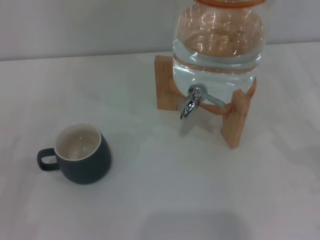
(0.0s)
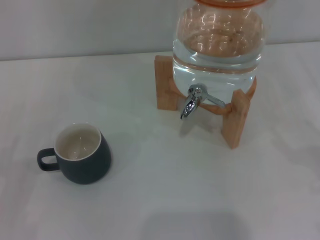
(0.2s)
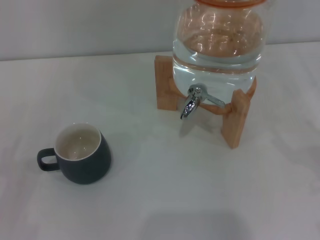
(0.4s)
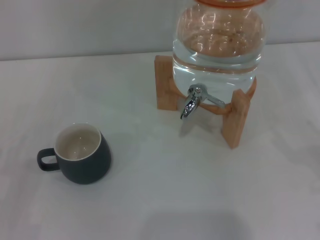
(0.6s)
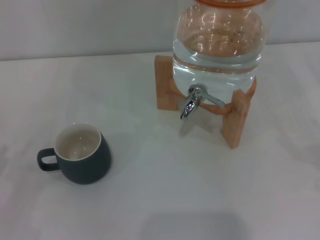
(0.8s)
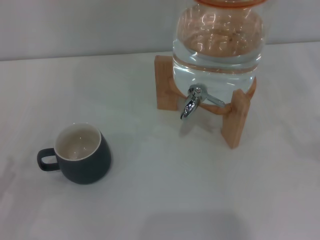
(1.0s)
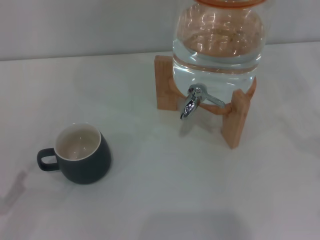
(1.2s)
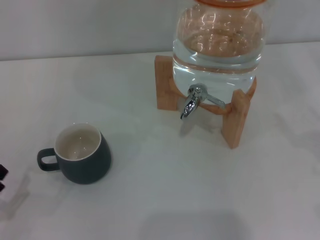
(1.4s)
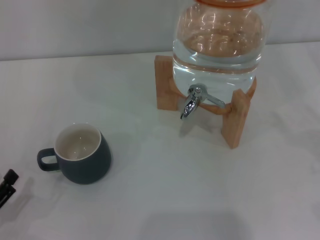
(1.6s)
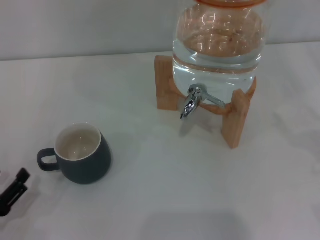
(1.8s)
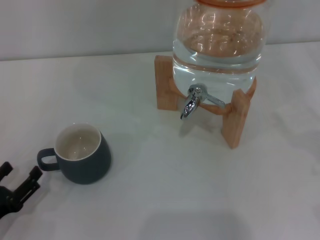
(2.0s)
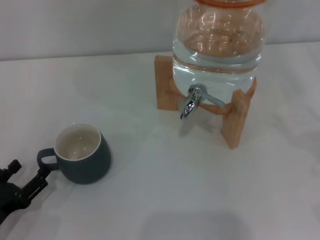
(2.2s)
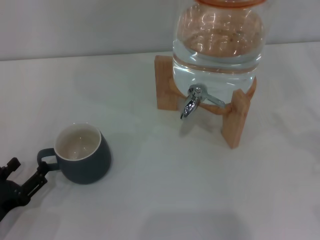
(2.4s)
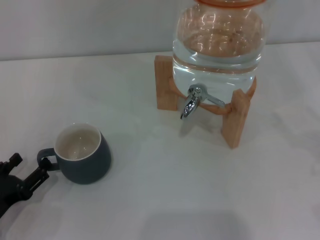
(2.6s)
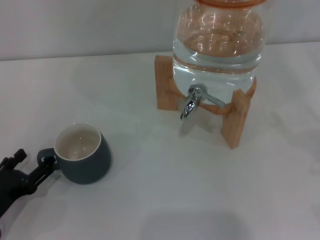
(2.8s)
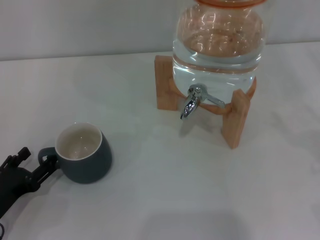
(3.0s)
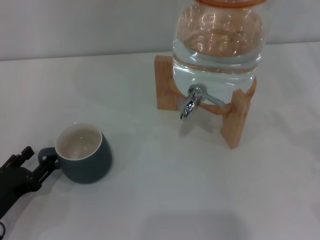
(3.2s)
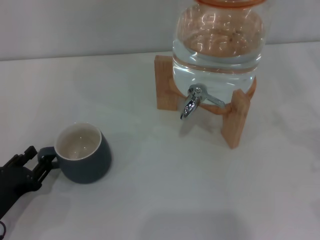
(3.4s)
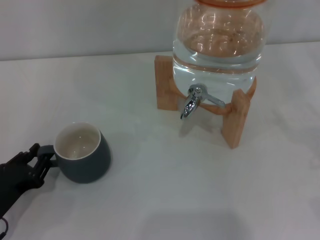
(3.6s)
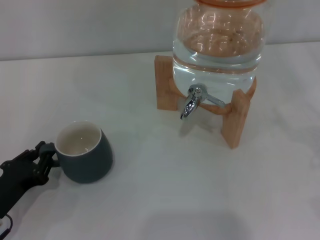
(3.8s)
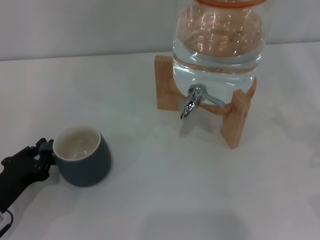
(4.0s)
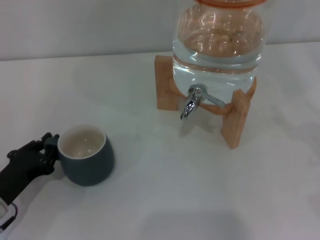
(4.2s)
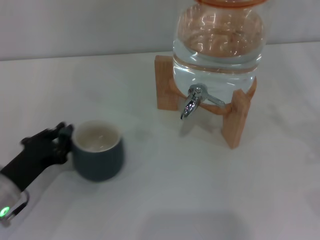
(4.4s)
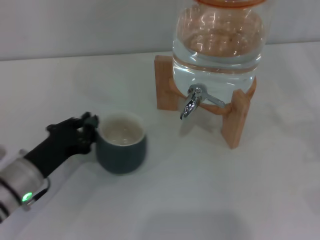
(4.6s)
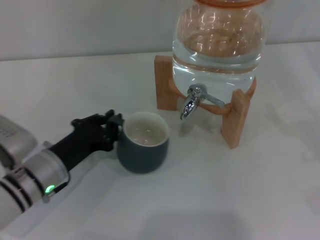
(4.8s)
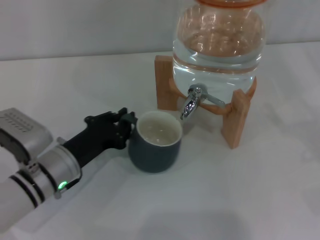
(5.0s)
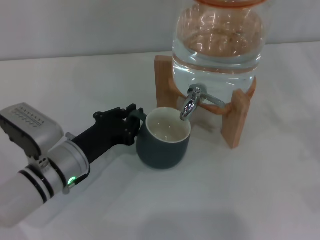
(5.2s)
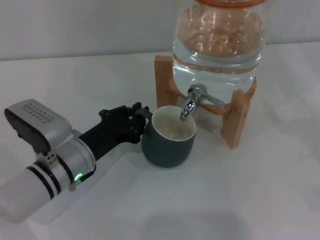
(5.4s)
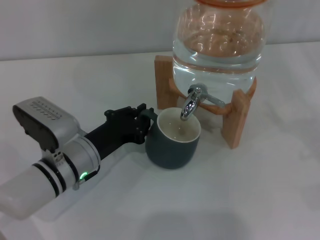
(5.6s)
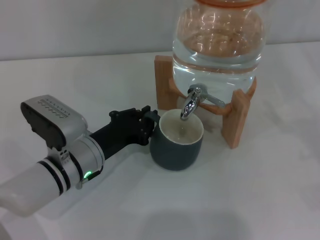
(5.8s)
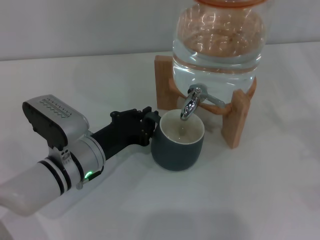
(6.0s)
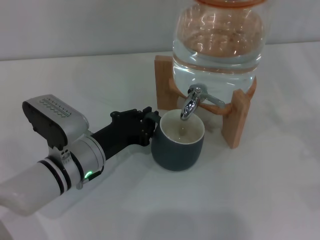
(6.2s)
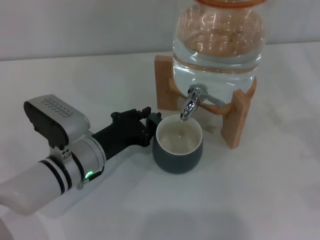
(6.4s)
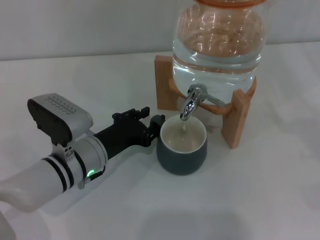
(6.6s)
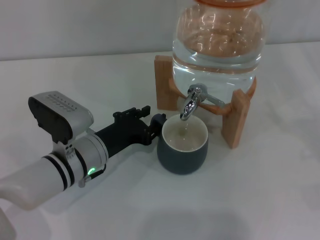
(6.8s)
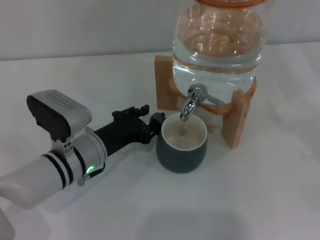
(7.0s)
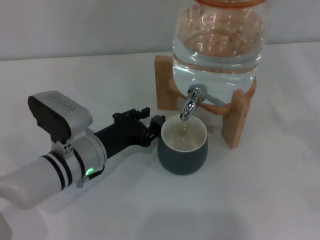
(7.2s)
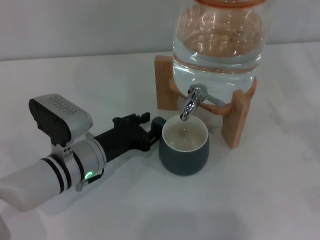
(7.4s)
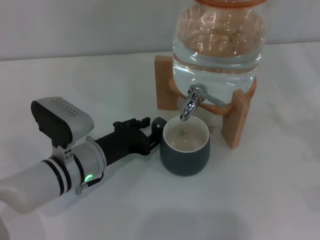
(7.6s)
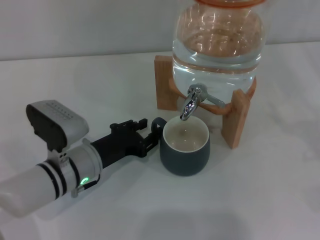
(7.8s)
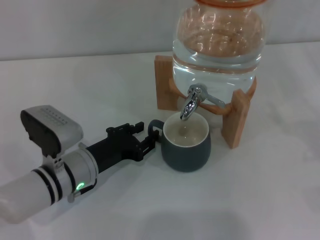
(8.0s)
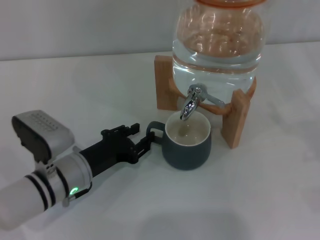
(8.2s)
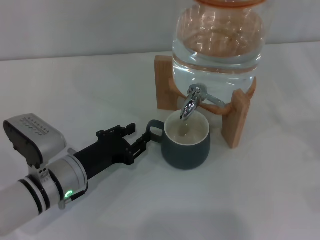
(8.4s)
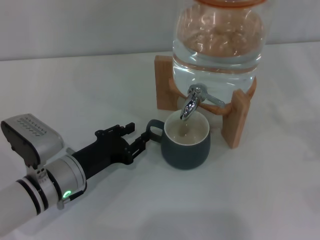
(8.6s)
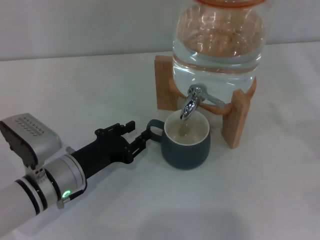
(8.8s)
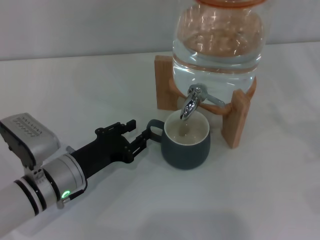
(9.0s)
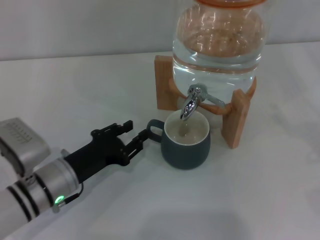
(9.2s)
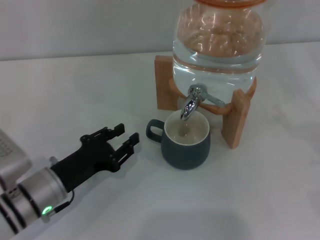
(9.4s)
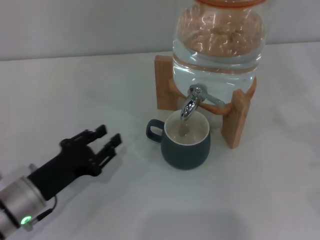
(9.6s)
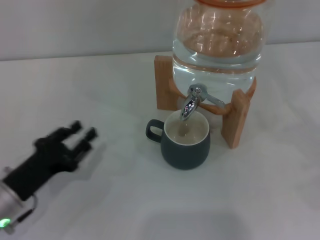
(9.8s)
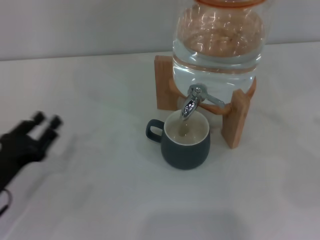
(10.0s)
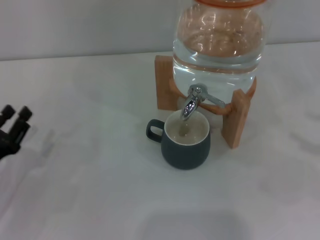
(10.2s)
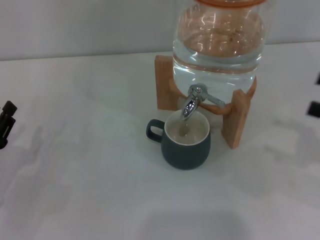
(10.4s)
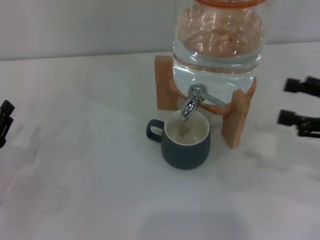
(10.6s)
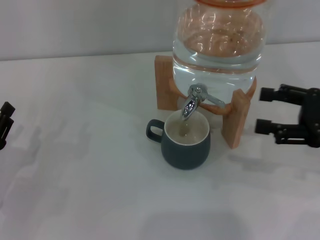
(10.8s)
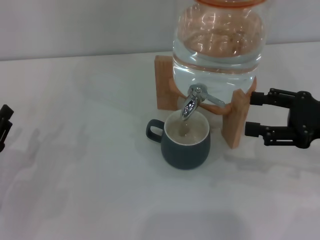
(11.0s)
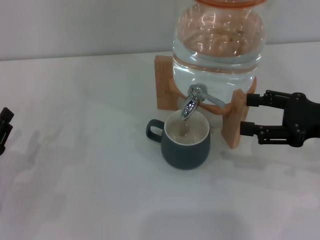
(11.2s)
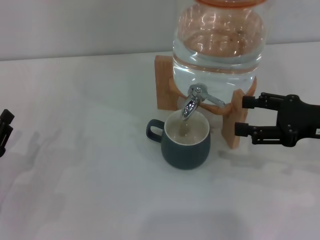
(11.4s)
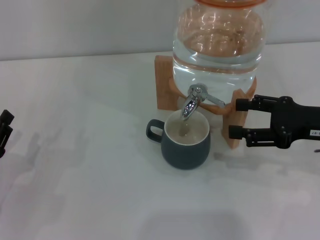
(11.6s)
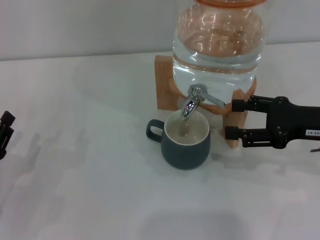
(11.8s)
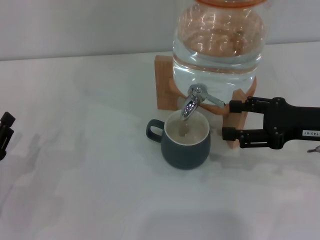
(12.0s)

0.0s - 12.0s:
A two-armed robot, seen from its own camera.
Task of the whole recording: the left gripper pick up the black cup and place it horizontally under the faucet, the right gripper turn on the faucet to fill the cup, and then turn off the faucet.
Step, 0.0s - 8.2s: Move the cup beneath the water dispenser nozzle with the left gripper.
0.0s - 1.6s: The left gripper ends up some 5 cm from where it was.
1.6s - 3.0s: The left gripper heads forward, covering roughly 5 cm.
3.0s - 4.4s: The left gripper changes place by some 5 cm, and closes.
4.4s - 6.0s: The left gripper shifts roughly 10 cm to the right.
6.0s - 7.6s: The left gripper opens its fingers.
7.6s - 9.0s: The grippers stay close to where they were, moving slightly.
9.0s - 10.4s: The right gripper shifts about 10 cm to the left and upward; the left gripper goes about 15 cm to the left.
10.4s - 12.0s: The right gripper shifts roughly 10 cm to the left and forward.

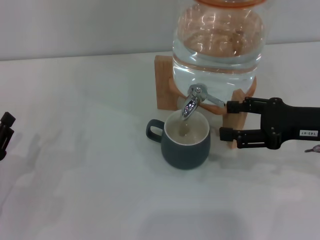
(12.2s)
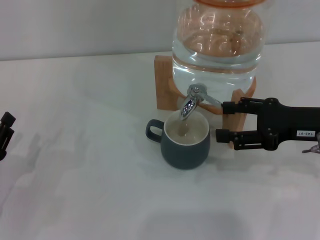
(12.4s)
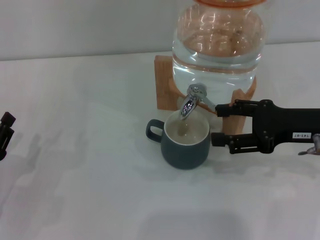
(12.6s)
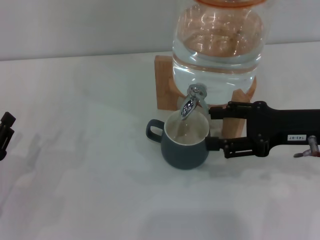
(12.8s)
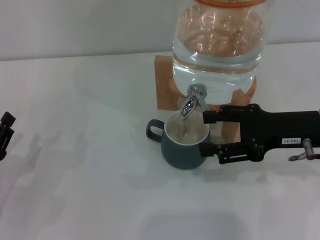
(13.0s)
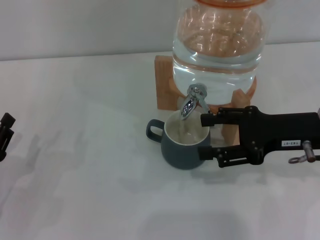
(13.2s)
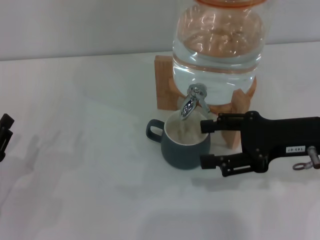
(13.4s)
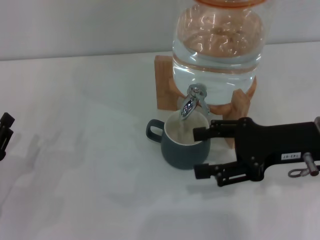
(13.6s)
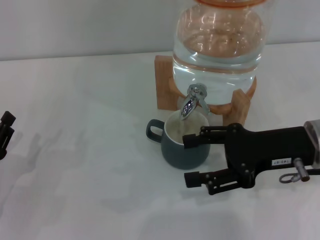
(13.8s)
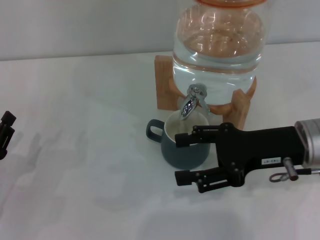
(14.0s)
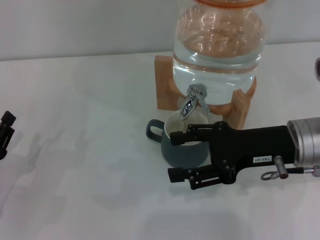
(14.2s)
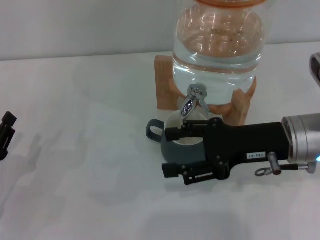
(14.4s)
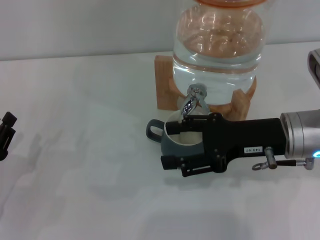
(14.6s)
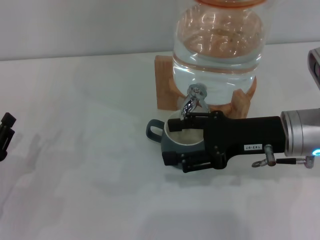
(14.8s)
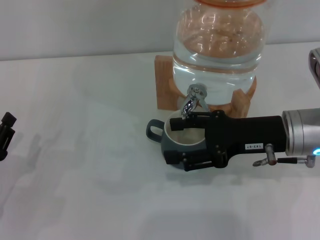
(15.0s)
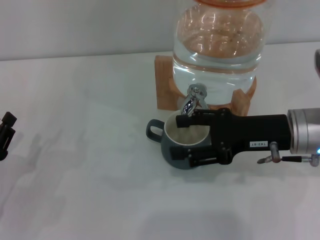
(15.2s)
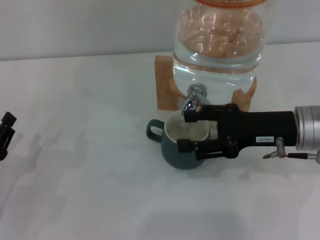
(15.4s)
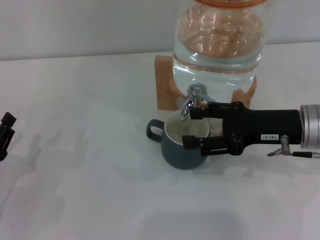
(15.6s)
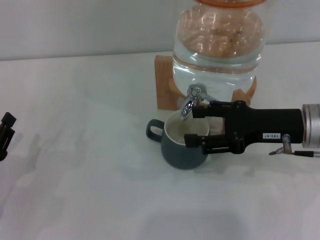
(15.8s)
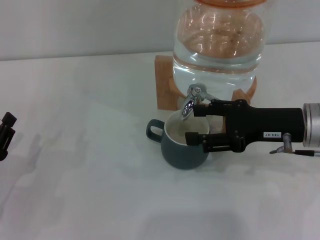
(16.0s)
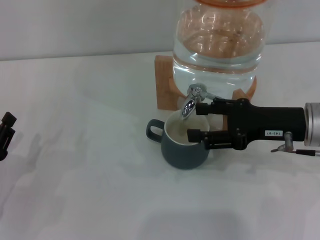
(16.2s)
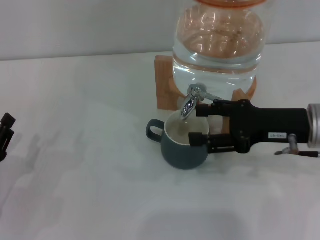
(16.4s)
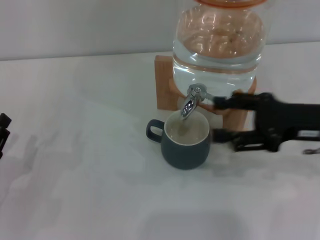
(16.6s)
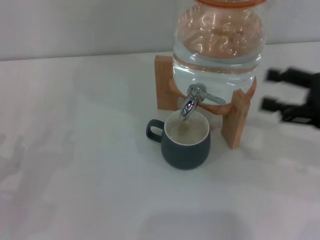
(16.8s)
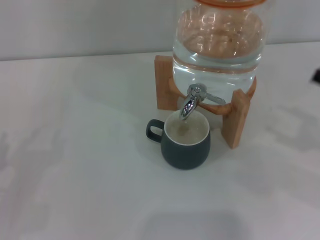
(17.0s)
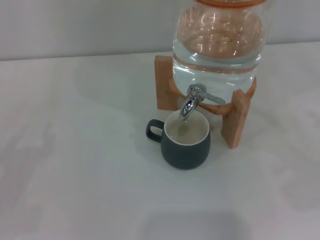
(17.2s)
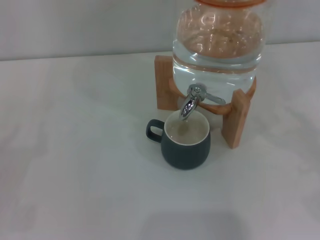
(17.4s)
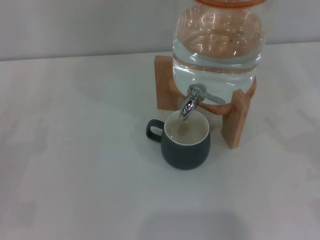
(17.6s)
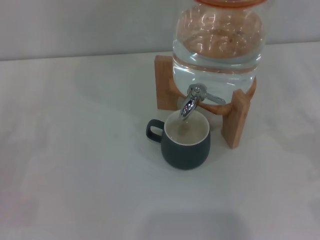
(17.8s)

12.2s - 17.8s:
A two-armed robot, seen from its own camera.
Task of the whole recording: the left gripper pick up the black cup and place it horizontally under the faucet, the right gripper turn on the faucet to fill the cup, and then turn off the faucet.
Step, 13.4s - 16.6s: Close the dispenser valve with the right gripper.
12.2s - 13.6s: There are only small adjustments of the grippers.
13.6s - 16.4s: There are only small adjustments of the grippers.
16.4s - 17.8s: The left gripper goes some 5 cm to the left; the right gripper goes about 20 cm to the right and backward.

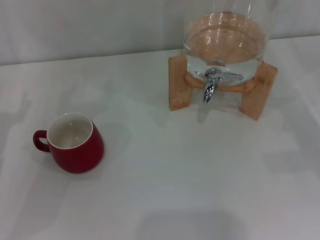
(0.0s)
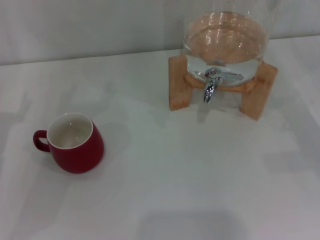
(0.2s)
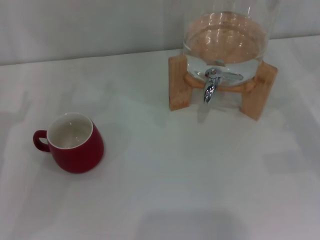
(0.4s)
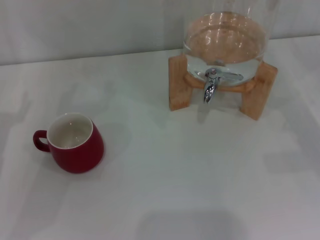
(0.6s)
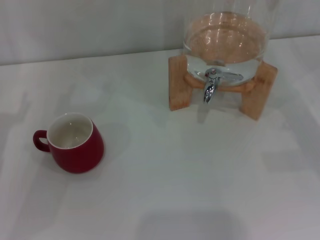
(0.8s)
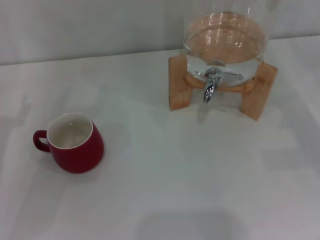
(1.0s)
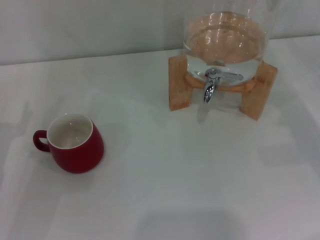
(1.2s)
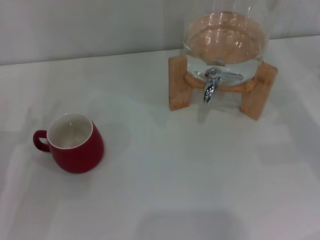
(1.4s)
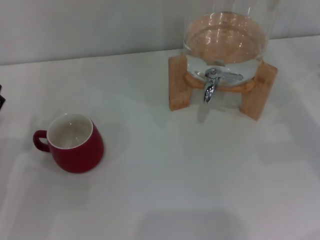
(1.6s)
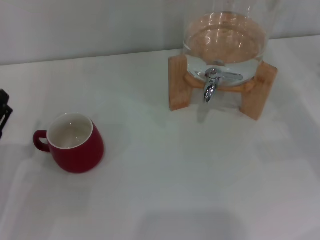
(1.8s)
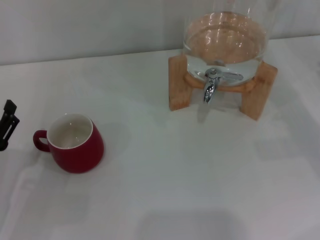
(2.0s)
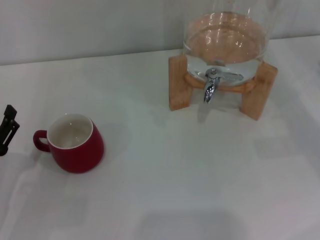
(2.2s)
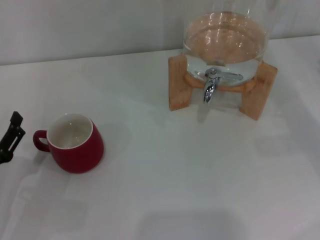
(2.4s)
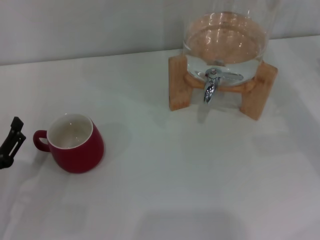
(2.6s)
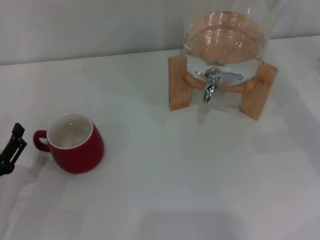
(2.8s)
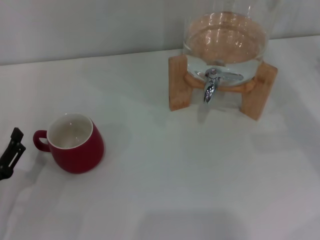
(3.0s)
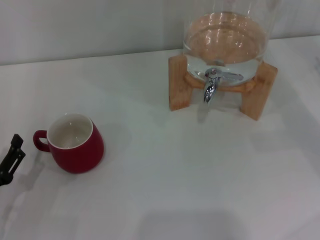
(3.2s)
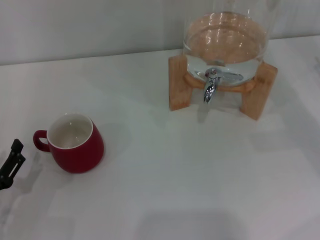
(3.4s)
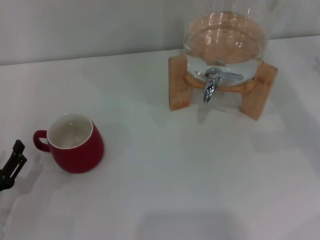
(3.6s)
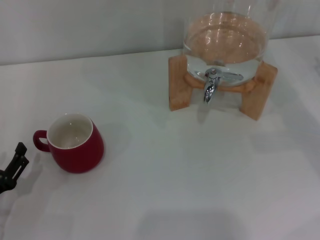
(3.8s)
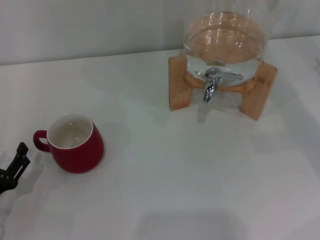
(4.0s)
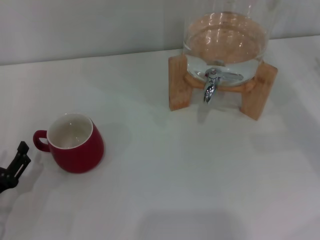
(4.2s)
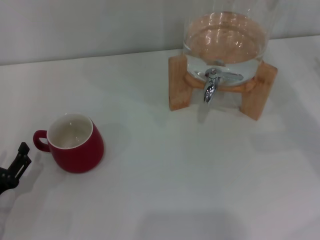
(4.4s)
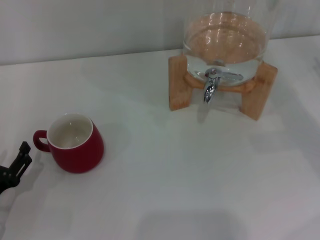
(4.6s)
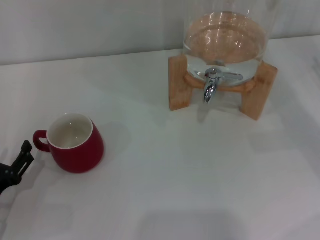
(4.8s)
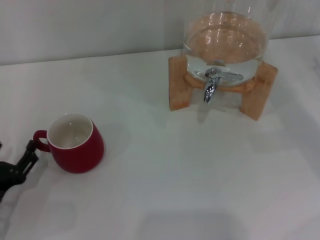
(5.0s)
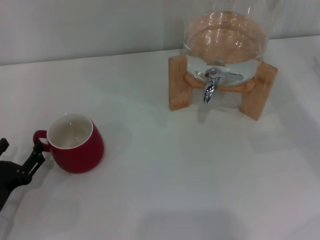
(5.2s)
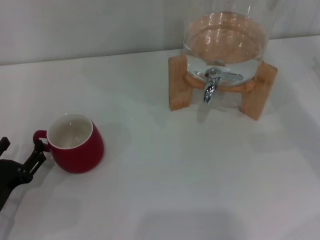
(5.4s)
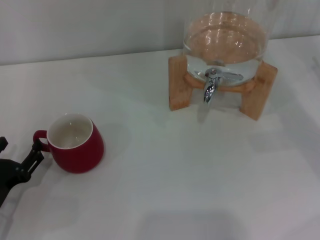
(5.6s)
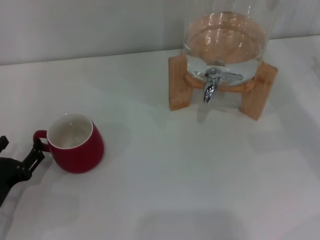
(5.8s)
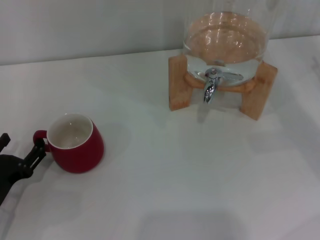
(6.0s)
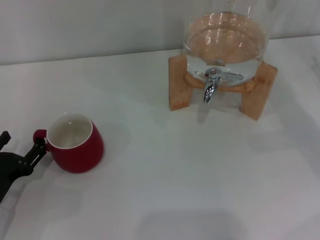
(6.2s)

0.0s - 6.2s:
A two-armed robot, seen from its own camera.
Task of the whole recording: the left gripper pick up the red cup and place it horizontally under the faucet, the right gripper turn on the faucet to fill the cup, and then turn off the faucet.
1.6s - 3.2s: The left gripper heads backward, covering approximately 5 cm.
3.2s - 6.2s: The grippers stay close to where they were, moving slightly.
